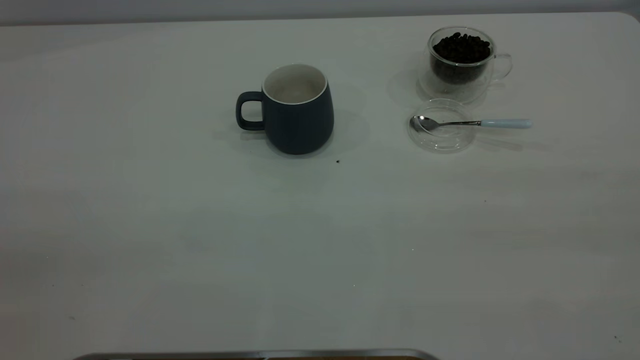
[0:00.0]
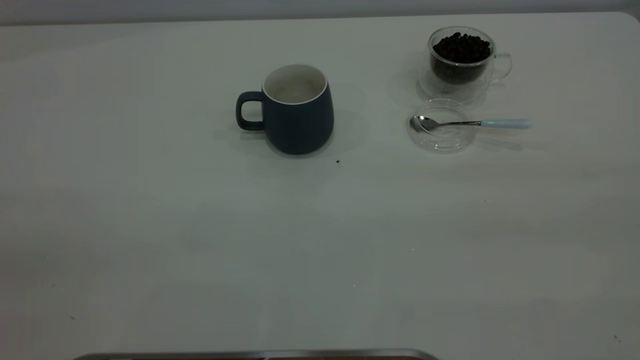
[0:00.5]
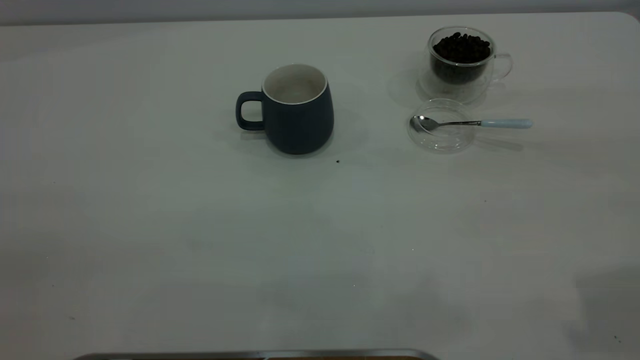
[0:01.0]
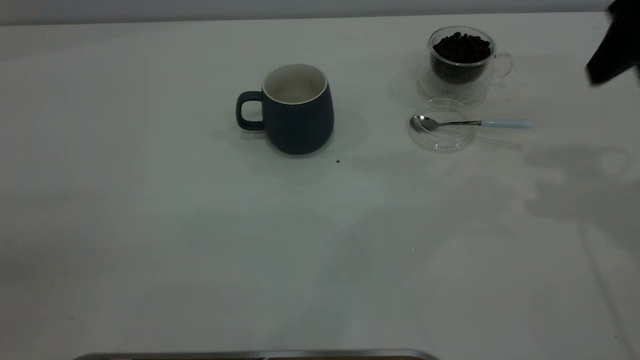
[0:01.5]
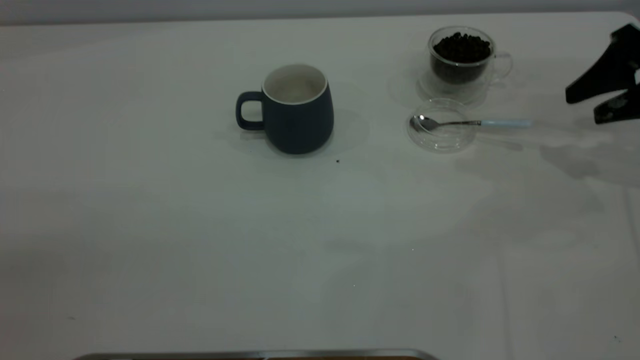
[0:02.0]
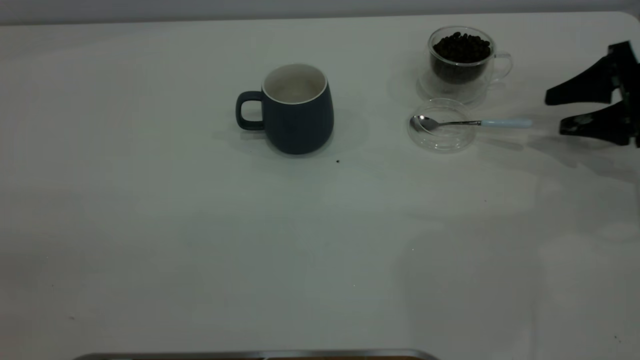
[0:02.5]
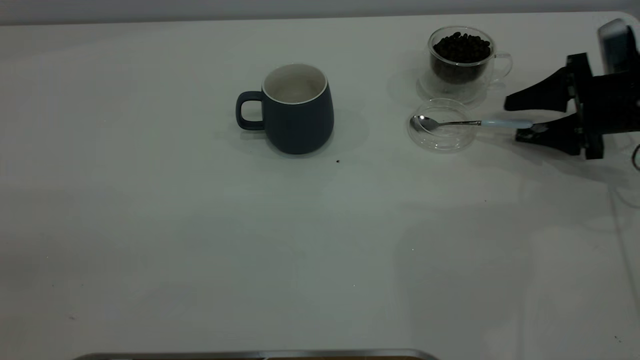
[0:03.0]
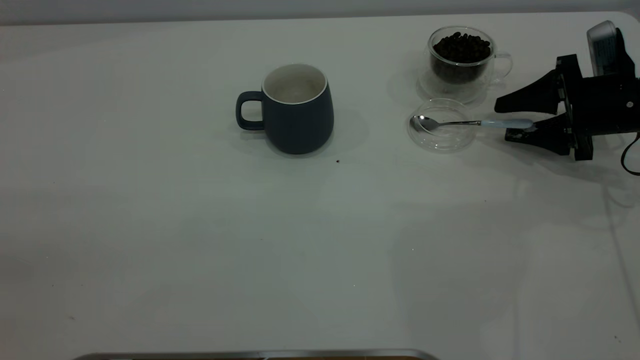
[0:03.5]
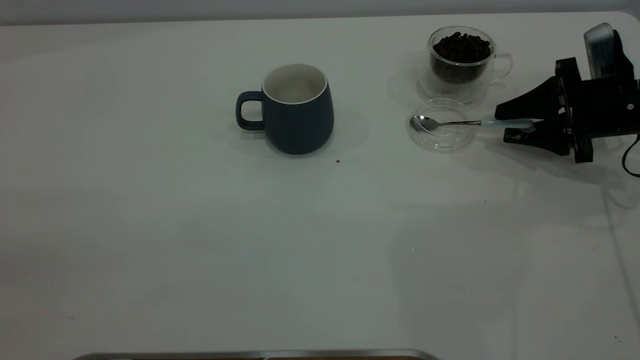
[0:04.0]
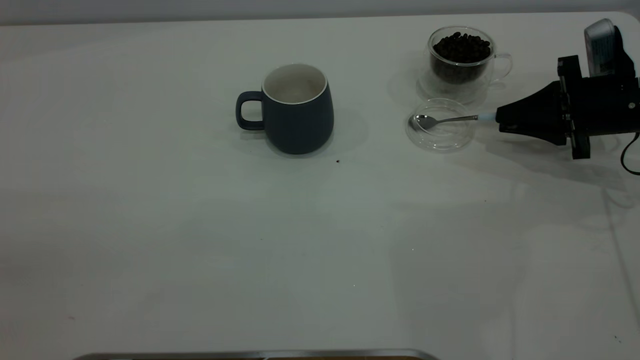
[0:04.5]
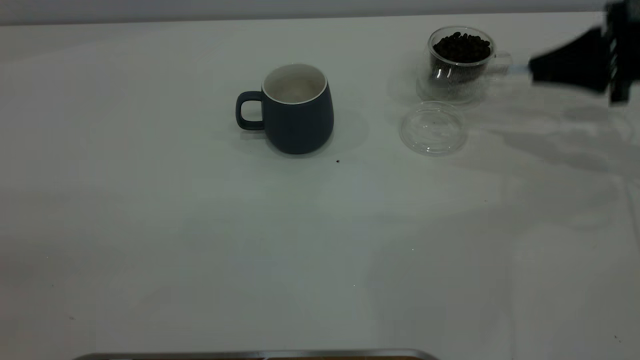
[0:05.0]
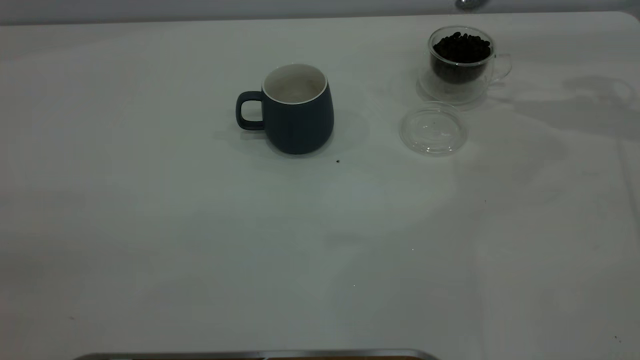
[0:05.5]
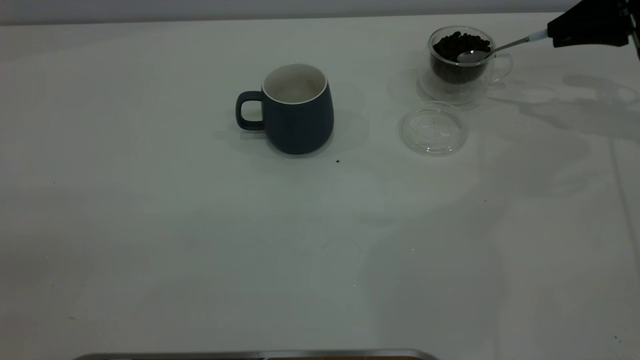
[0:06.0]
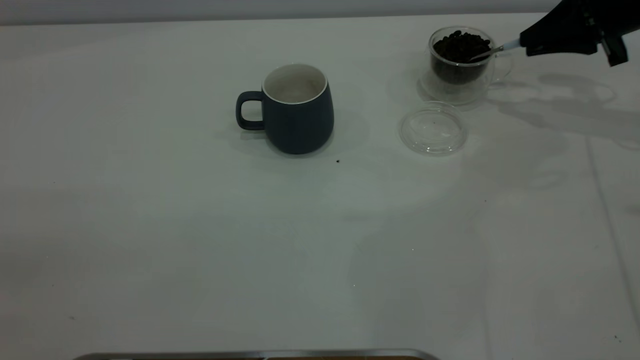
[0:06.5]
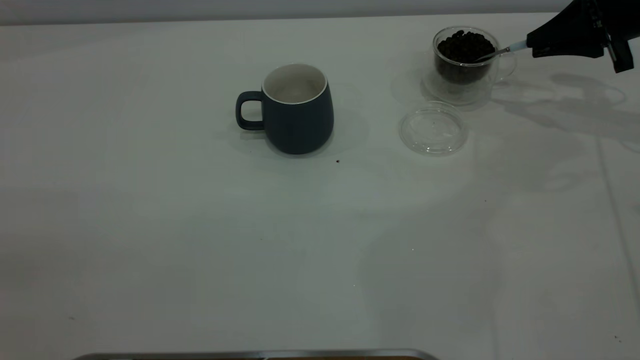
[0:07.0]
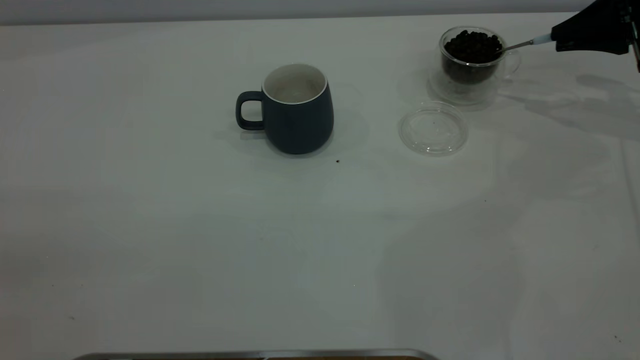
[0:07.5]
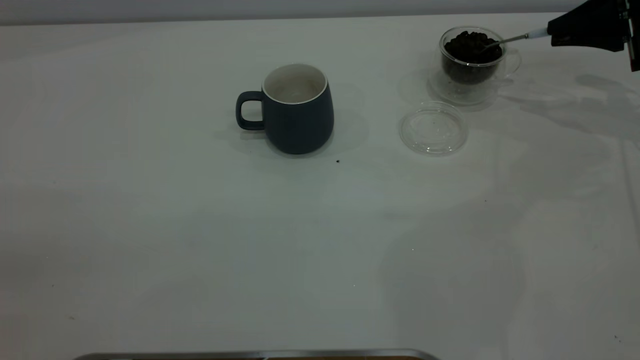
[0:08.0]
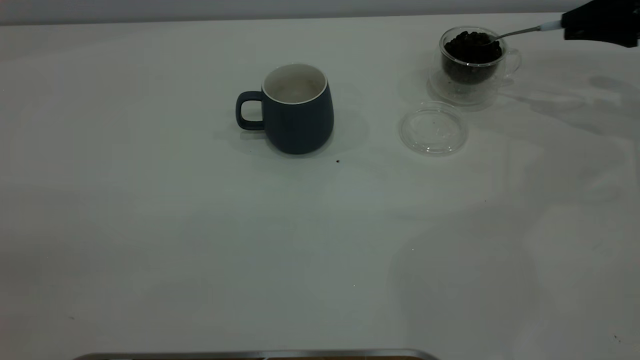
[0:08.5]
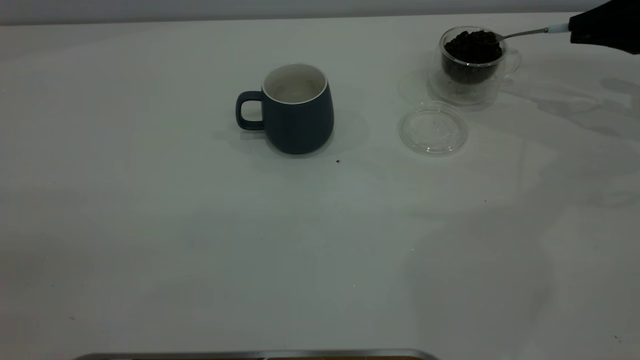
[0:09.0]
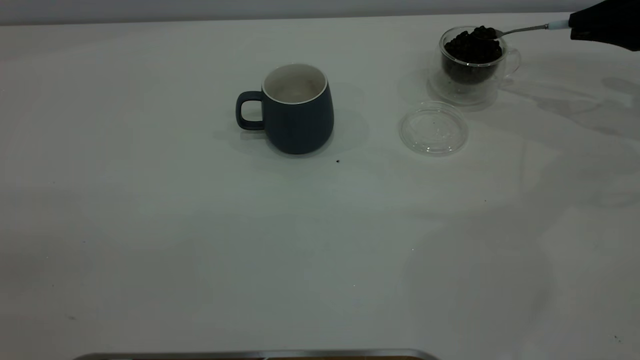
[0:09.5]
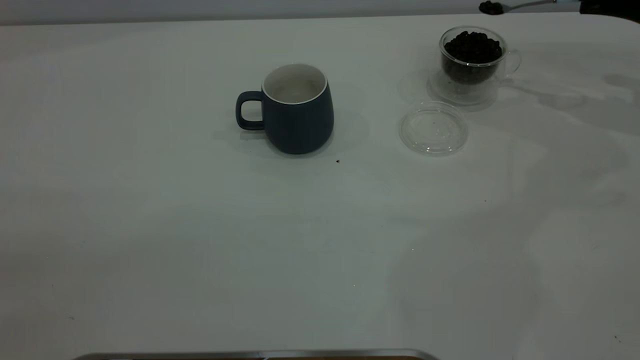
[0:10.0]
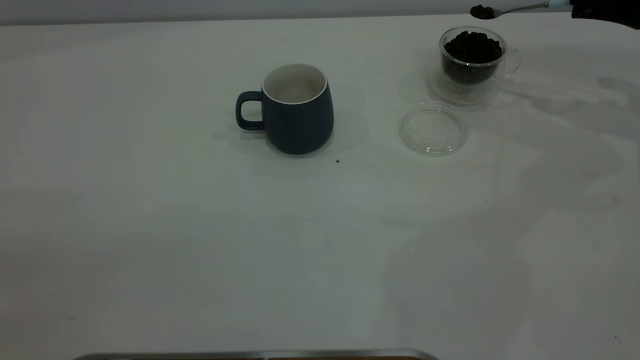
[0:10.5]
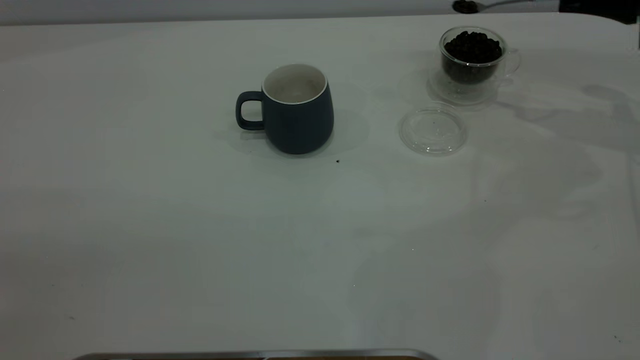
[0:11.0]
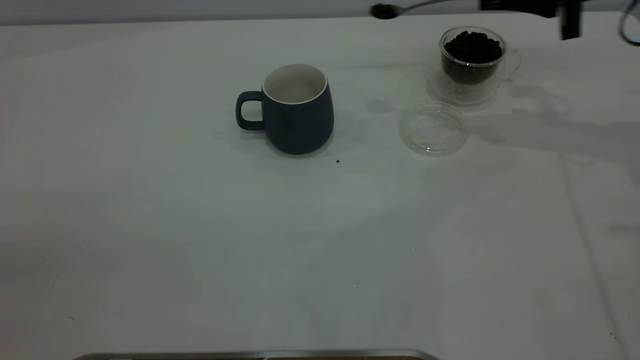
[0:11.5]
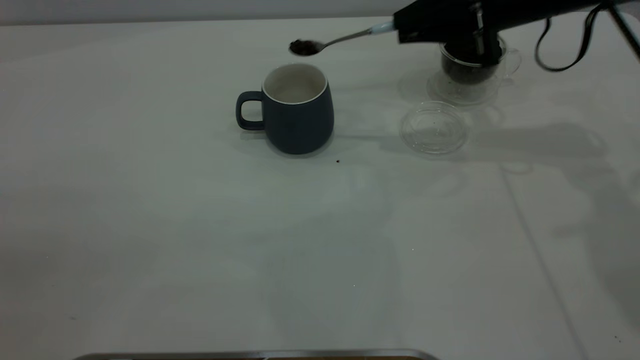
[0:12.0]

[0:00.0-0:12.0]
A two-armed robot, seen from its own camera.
Task of the whole recording: the left gripper place the grey cup in the center of the table, the right gripper take the blue spoon from the cup lid and scoop out the coffee beans from the coffee cup and put them into the grey cup, the right gripper put the spoon back into the cup lid.
Step, 0:00.0 to 0:04.5: Pick up the spoon.
0:00.0 to 0:02.0: The right gripper shifts some 40 cm forward and downward.
0:02.0 to 0:04.0: The right gripper shifts about 10 cm downward.
0:04.0 to 0:06.0: The right gripper heads upward and forward, covering roughly 15 cm, and closes up.
0:06.0 to 0:10.0: The grippers make only small movements.
0:10.0 to 0:12.0: The right gripper moves to the left, about 20 cm.

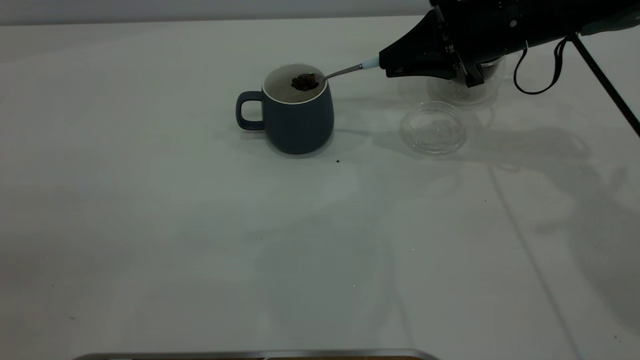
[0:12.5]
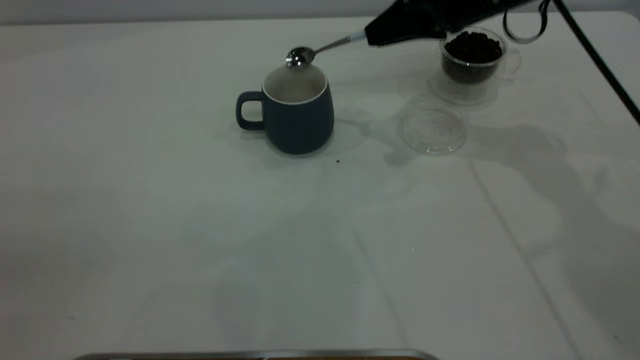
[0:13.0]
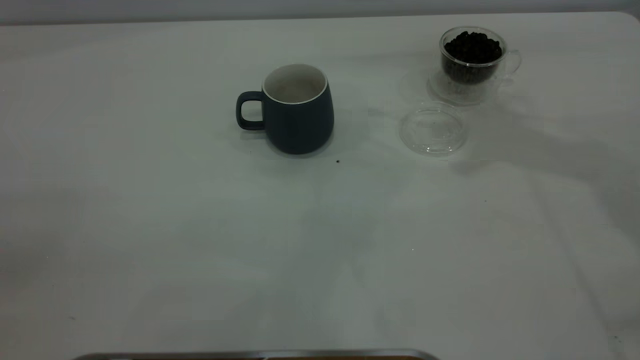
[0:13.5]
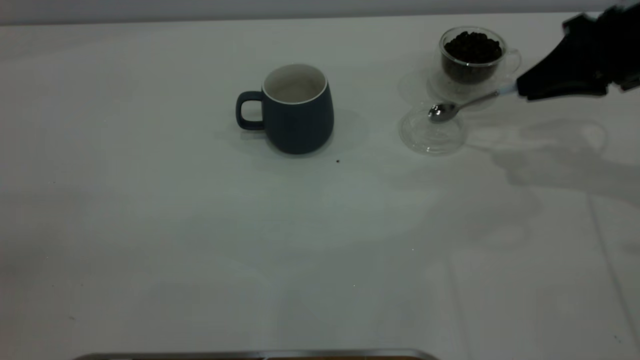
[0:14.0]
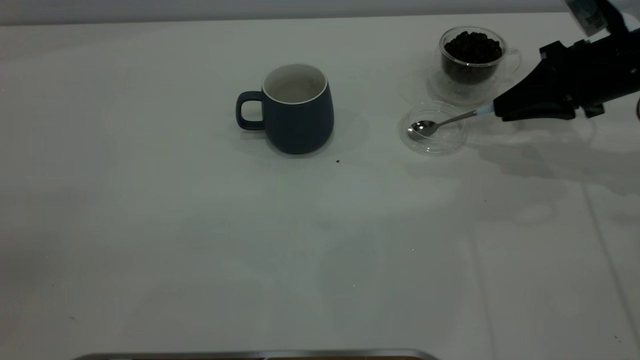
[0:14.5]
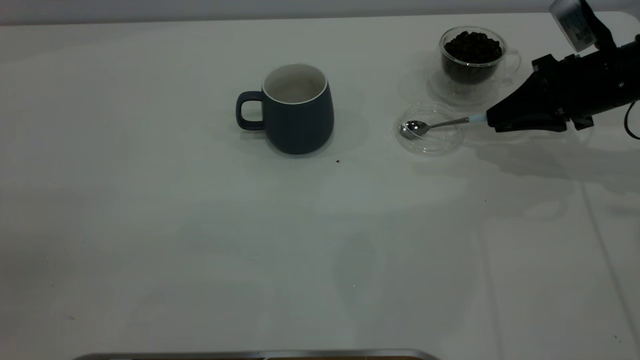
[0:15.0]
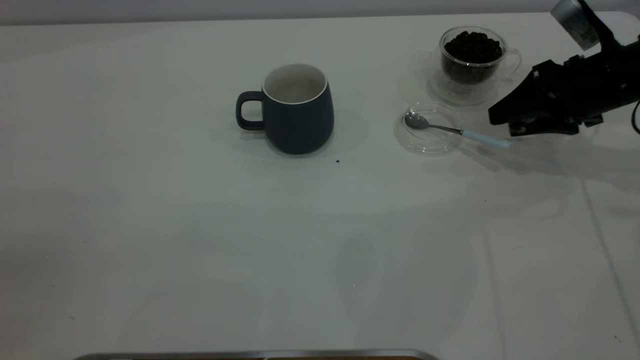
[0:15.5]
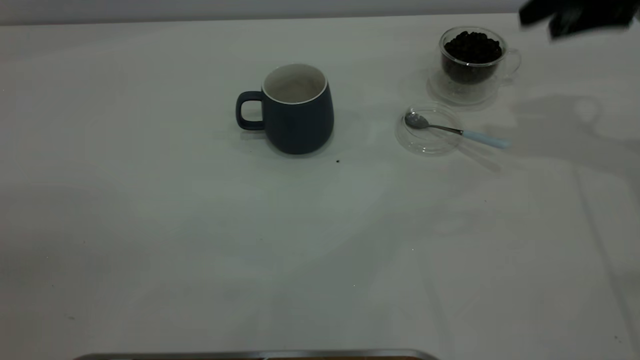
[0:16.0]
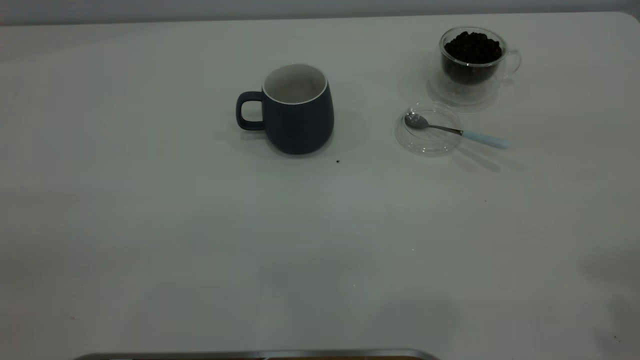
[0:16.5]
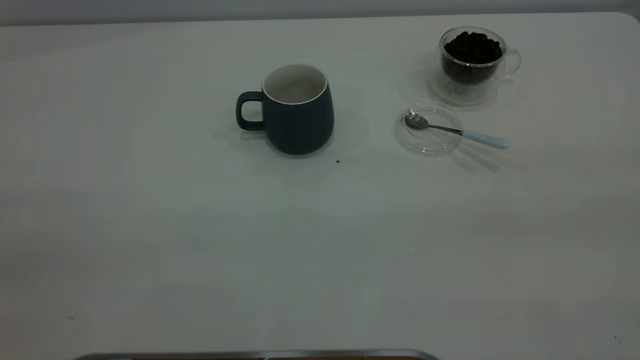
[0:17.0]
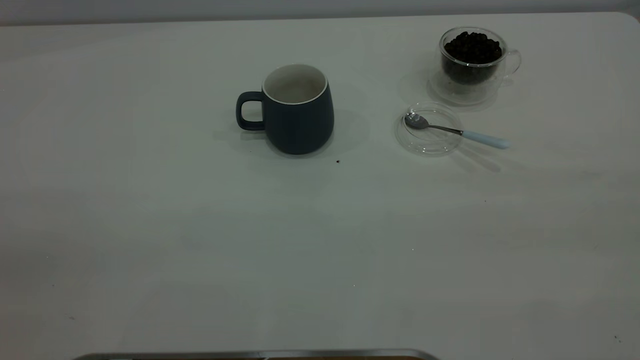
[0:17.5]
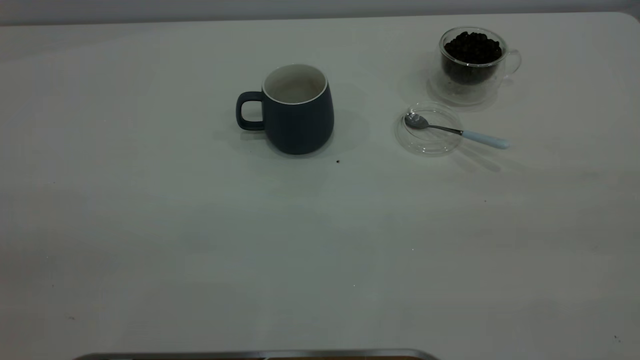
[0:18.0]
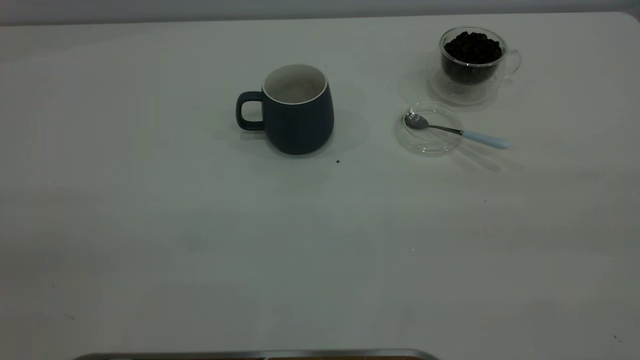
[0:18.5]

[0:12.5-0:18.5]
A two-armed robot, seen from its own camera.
Task of the whole recording: the left gripper place the grey cup in the center of the table, the right gripper take the blue spoon from the cup lid and scoop out the coffee beans from the coffee cup and put them into the grey cup, the right gripper put the spoon back into the cup lid.
Step, 0:13.5 to 0:15.5: Place the spoon back in its original place.
0:12.5 to 0:14.5: The right gripper heads to the right, covering some 10 cm, and travels upward and back again, approximately 15 cm each way.
0:14.5 to 0:16.5: The right gripper moves upward and backward, some 35 cm, and opens its fingers.
